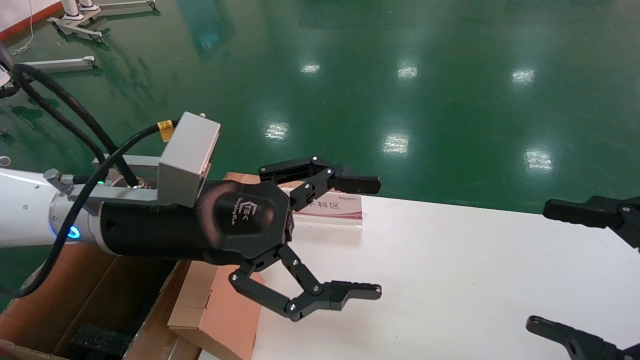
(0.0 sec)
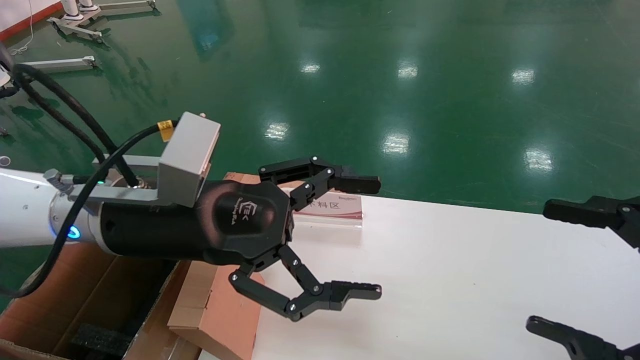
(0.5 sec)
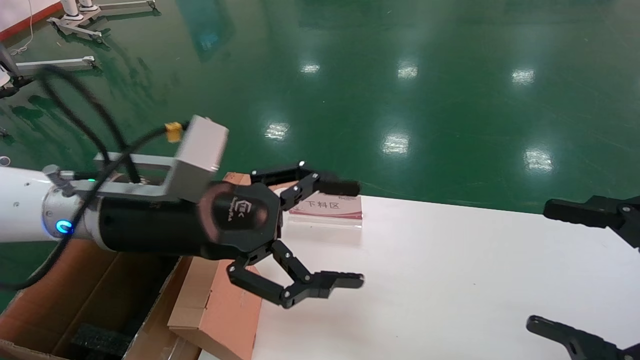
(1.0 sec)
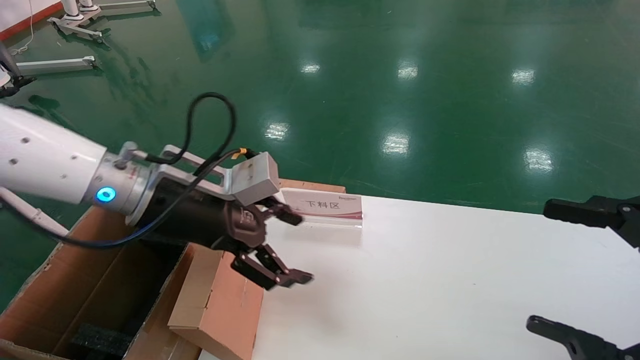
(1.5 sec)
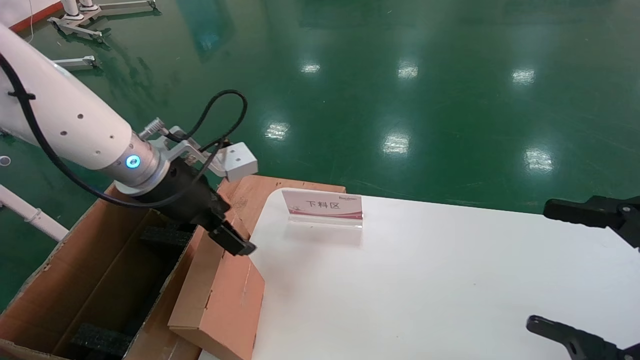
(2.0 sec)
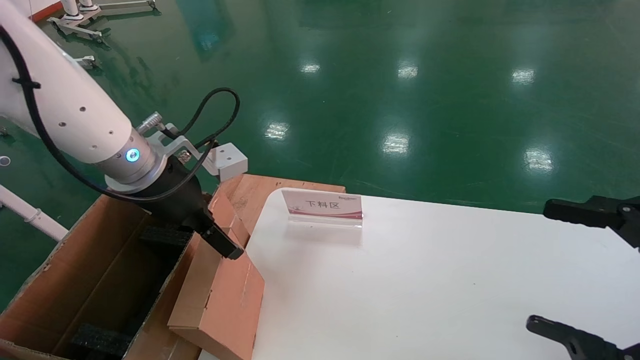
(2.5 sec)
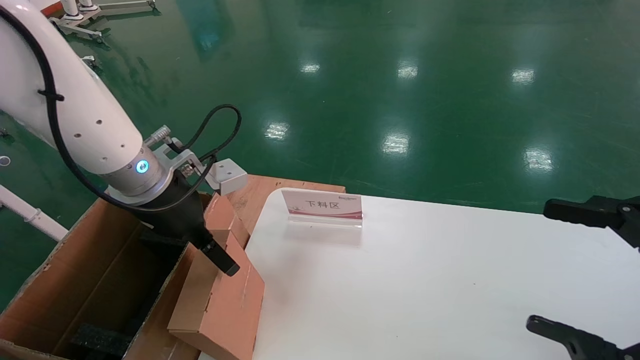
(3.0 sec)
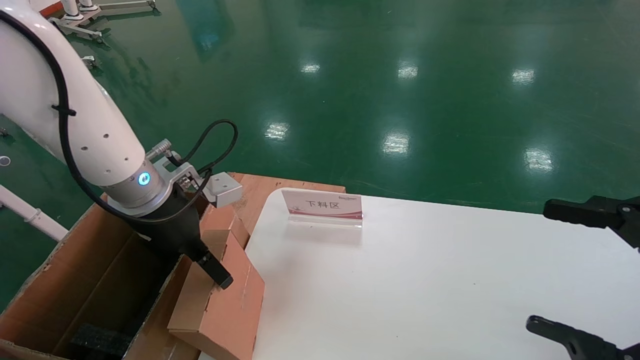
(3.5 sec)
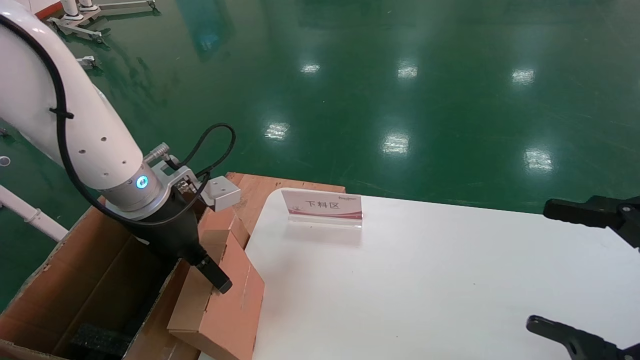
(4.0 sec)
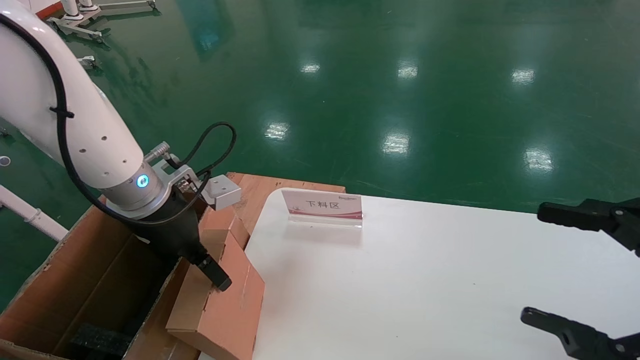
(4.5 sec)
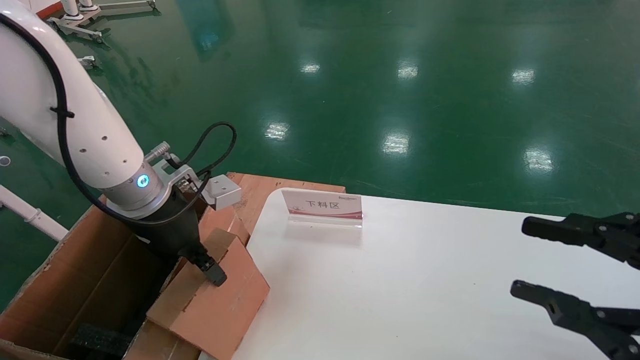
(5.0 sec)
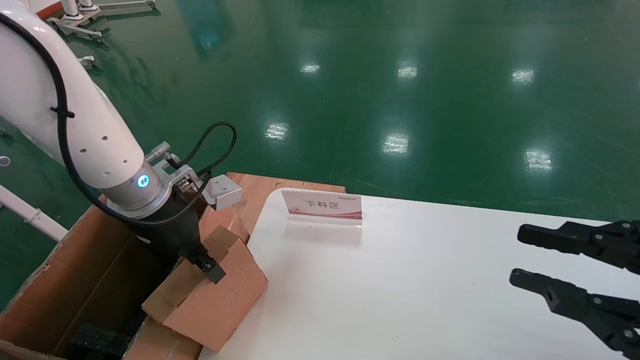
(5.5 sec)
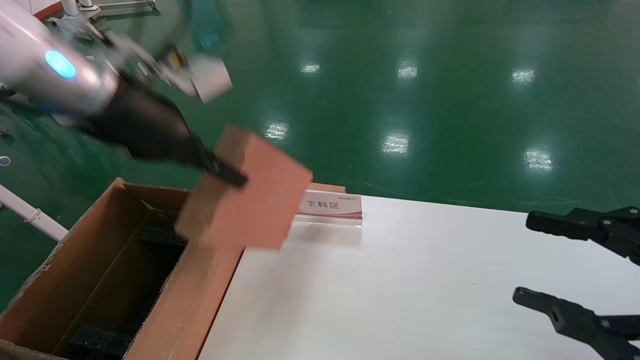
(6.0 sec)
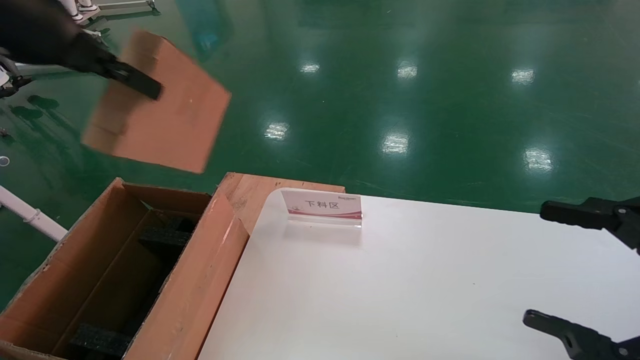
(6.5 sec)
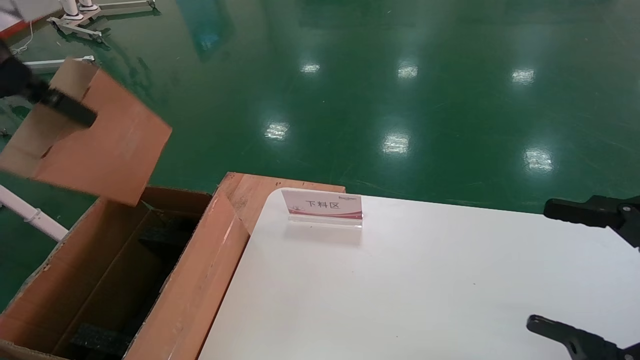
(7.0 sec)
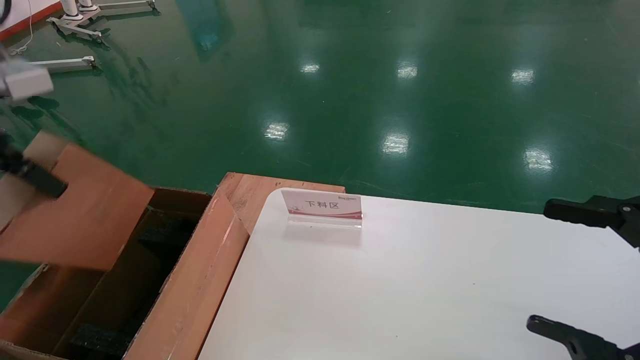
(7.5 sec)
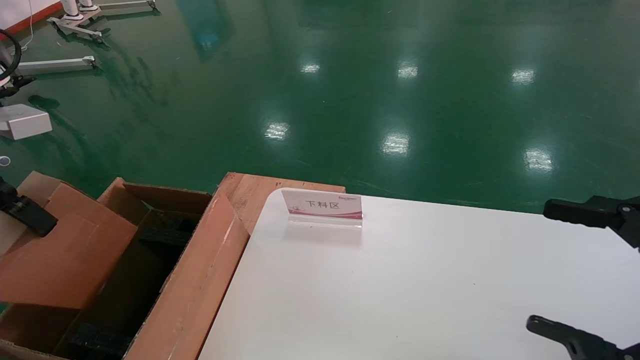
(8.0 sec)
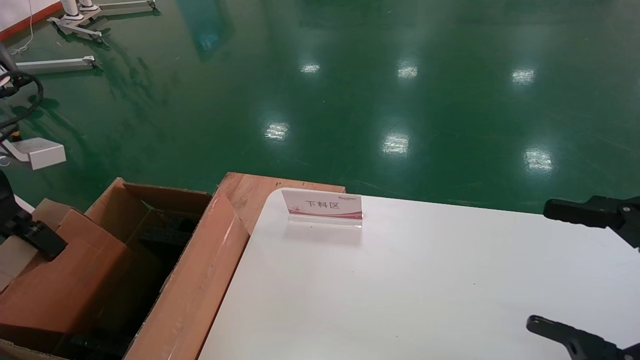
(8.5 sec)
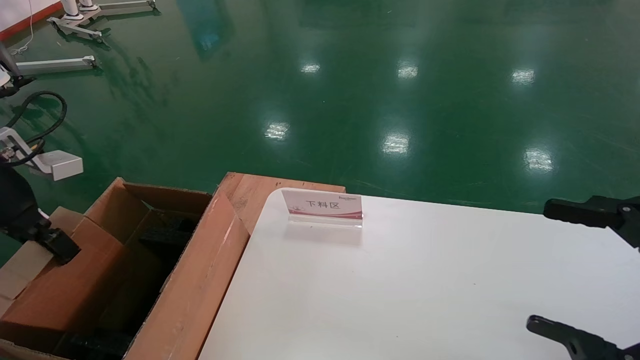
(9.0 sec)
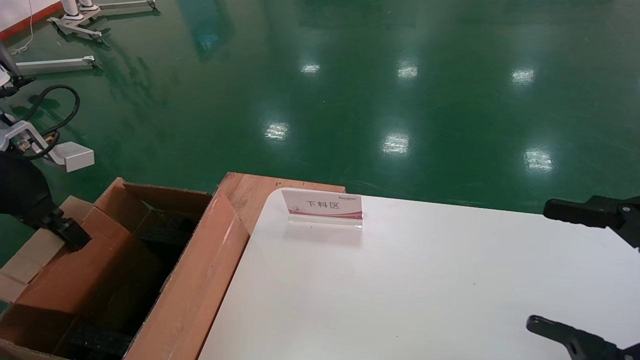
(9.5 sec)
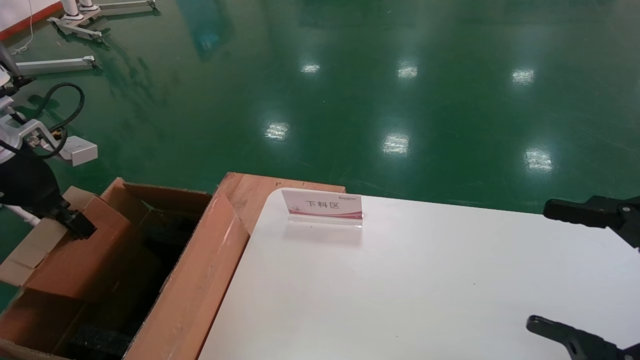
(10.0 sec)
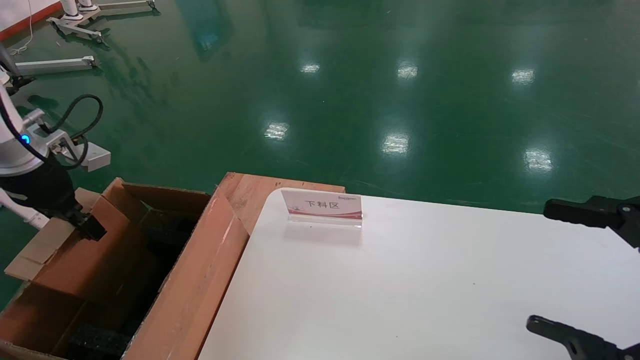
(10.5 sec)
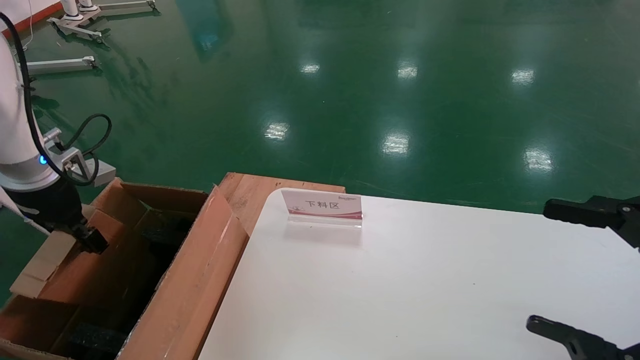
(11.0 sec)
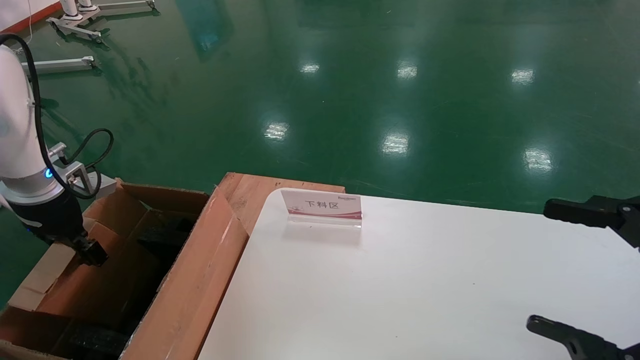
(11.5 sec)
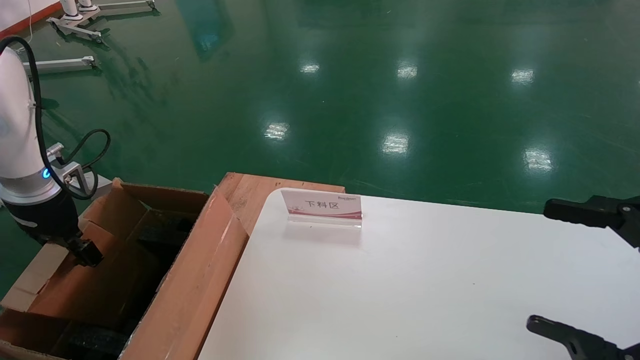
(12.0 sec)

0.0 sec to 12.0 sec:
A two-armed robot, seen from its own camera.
Task of the whole recording: pick up the small cardboard box and load it into the large cardboard box.
Step, 1.0 sec to 5.0 sec: Pick up the mouse and power cord box.
0.0 sec to 2.0 sec: The left gripper travels forward and to the left by about 10 cm.
4.0 sec to 6.0 sec: The right gripper closes. Meanwhile the left gripper goes some 15 cm upward, and closes its fingers.
6.0 sec to 8.0 sec: The right gripper opens up; the left gripper is displaced to the left by some 15 cm.
8.0 sec to 10.0 sec: The left gripper is displaced forward and downward by approximately 10 cm.
10.0 sec to 12.0 sec: The left gripper goes about 5 cm downward.

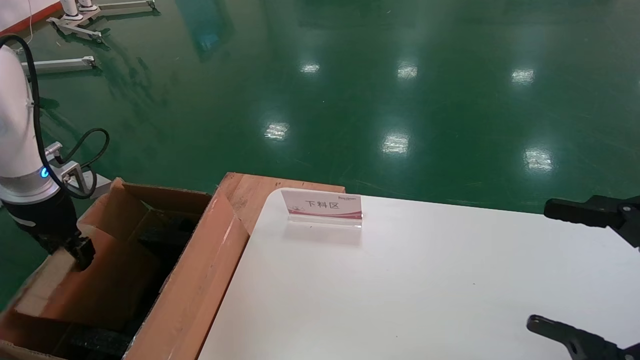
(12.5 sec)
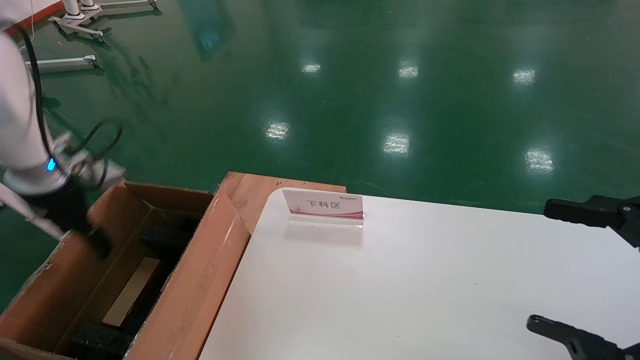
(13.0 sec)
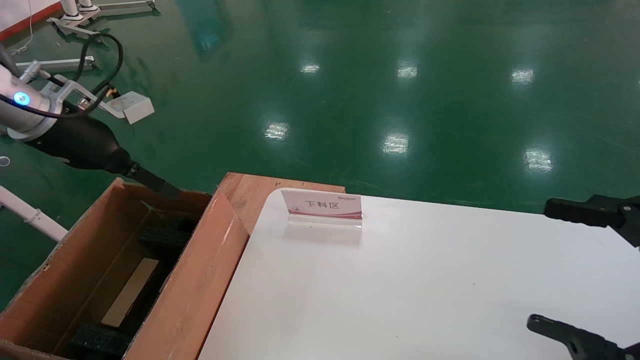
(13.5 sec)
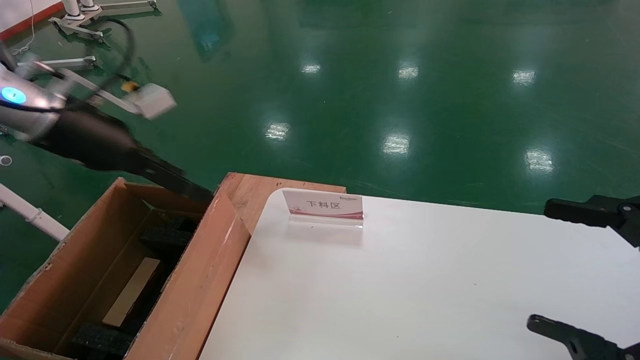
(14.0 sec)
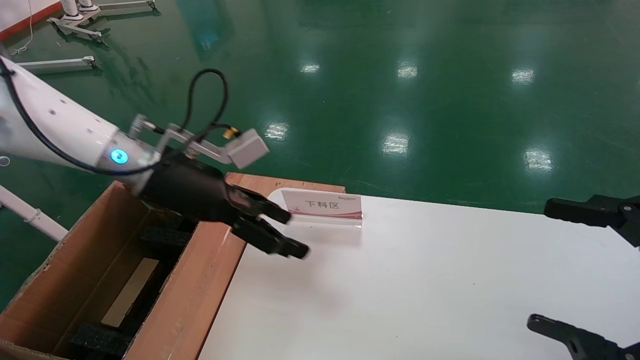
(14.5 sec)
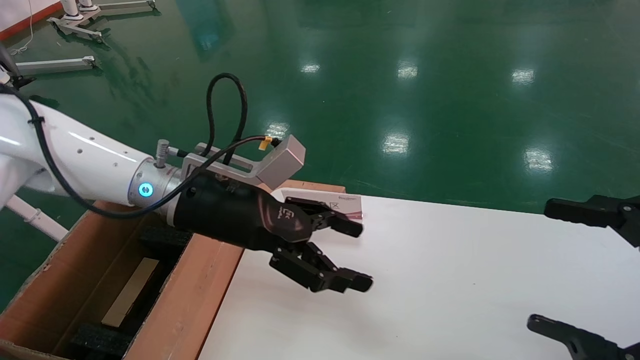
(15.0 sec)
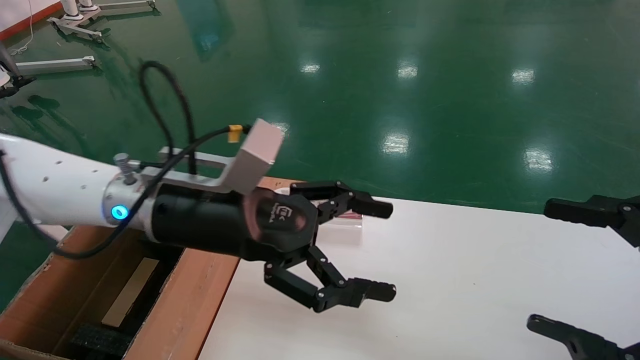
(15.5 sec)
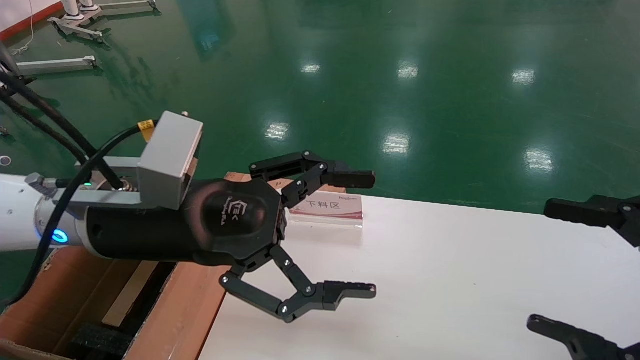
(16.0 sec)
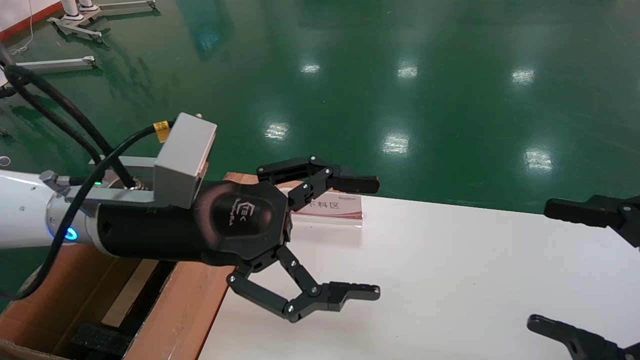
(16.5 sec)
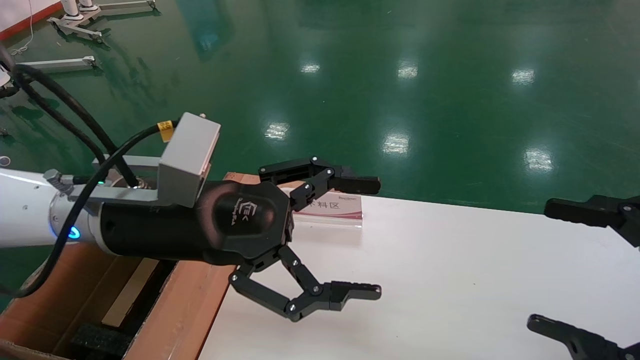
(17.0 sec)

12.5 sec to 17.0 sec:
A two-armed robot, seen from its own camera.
Task of the whole recording: pick up the small cardboard box and load it into the large cardboard box.
12.5 sec to 14.5 sec: The left gripper travels to the right by roughly 20 cm, and opens.
14.5 sec to 17.0 sec: The left gripper heads backward and to the right, covering about 10 cm.

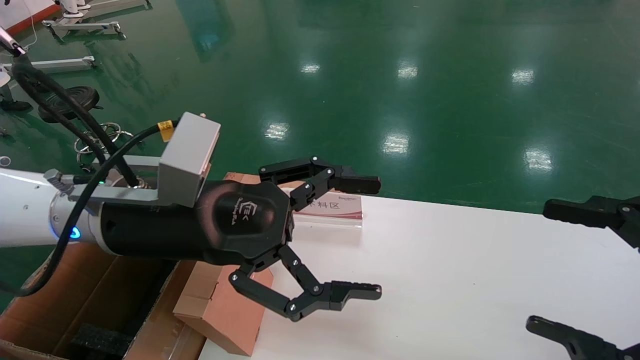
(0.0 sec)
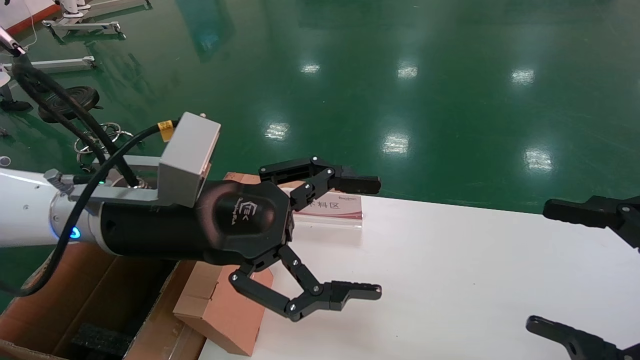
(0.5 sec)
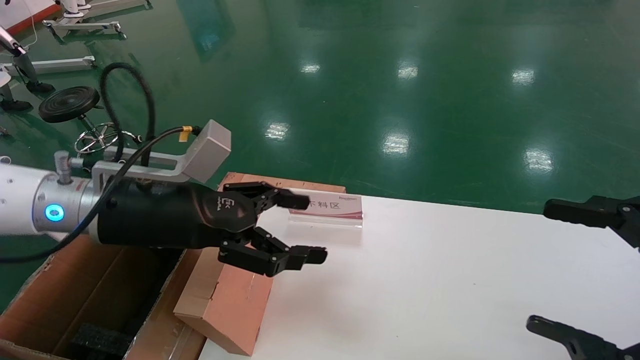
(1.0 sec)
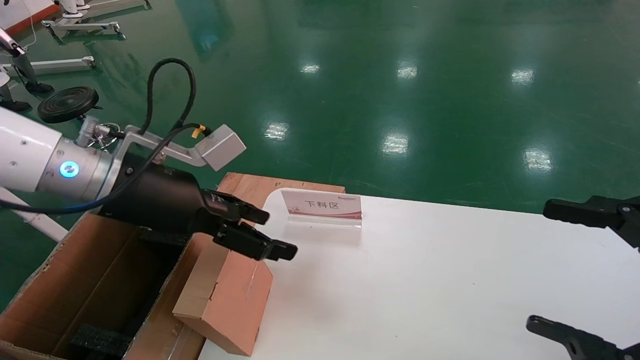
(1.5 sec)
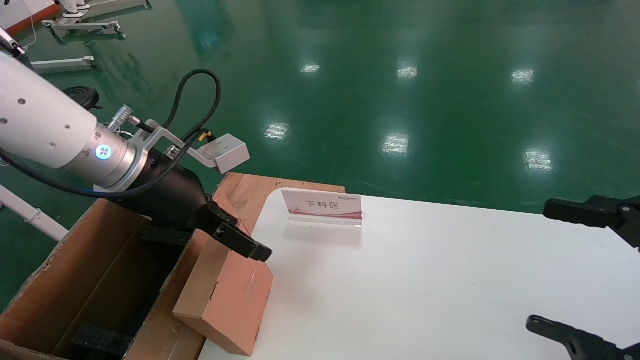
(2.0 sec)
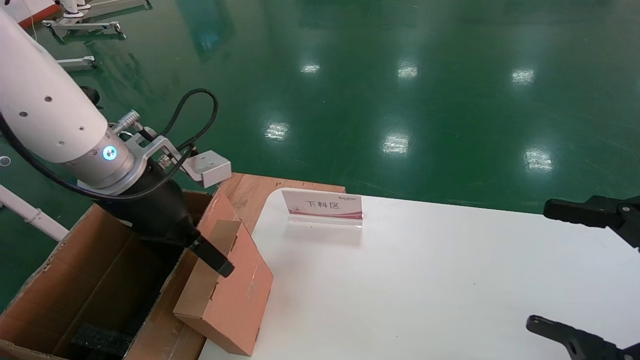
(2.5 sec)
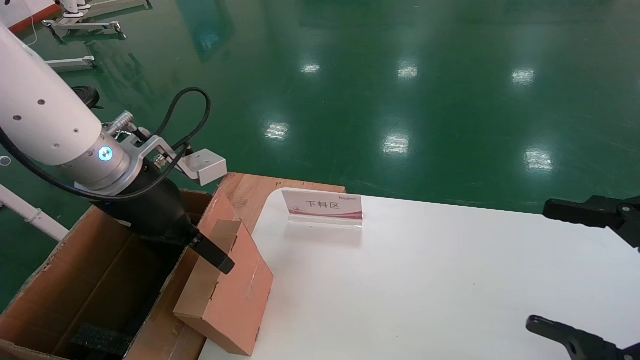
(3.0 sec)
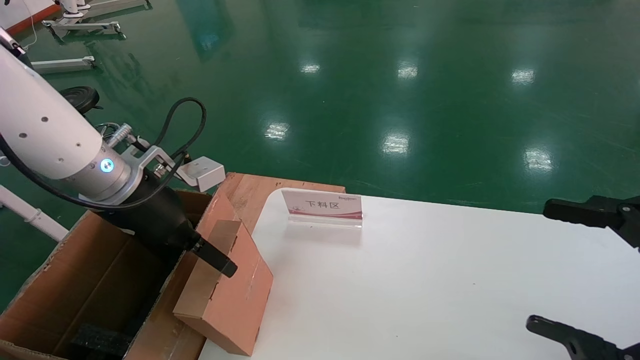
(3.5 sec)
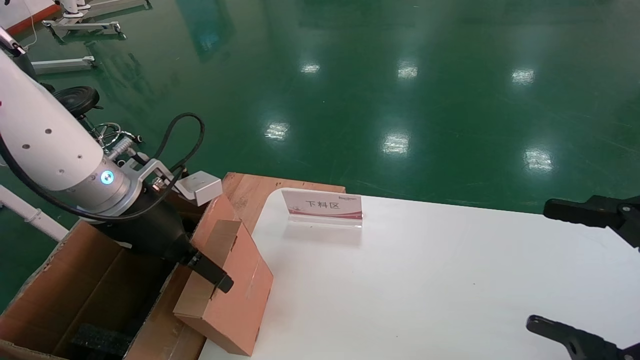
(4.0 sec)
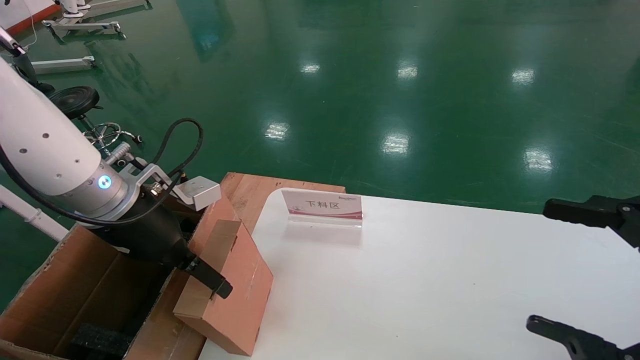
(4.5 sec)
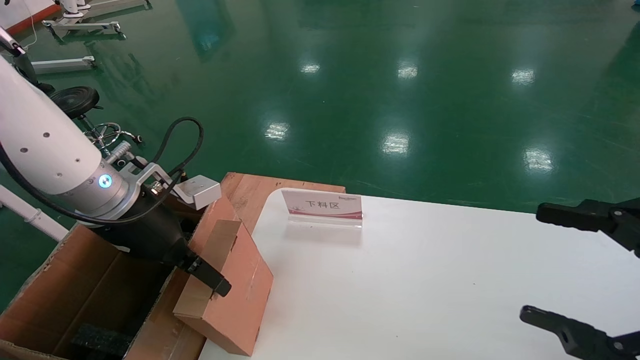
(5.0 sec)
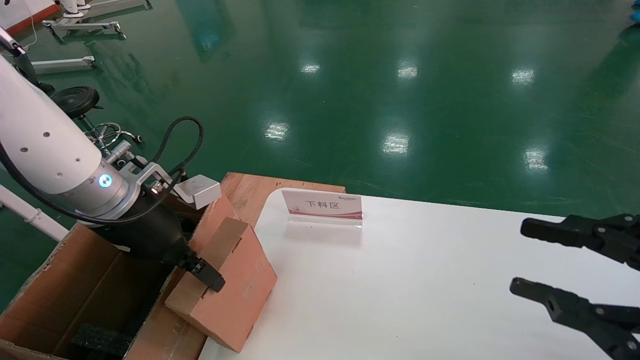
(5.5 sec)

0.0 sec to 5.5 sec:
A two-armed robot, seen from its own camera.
Task of the whole recording: pick up the small cardboard box and load it into the large cardboard box.
0.0 sec to 2.0 sec: The left gripper shifts roughly 5 cm forward.
2.0 sec to 3.5 sec: There are only small adjustments of the grippers.
3.5 sec to 5.5 sec: The left gripper closes, while the right gripper closes.
